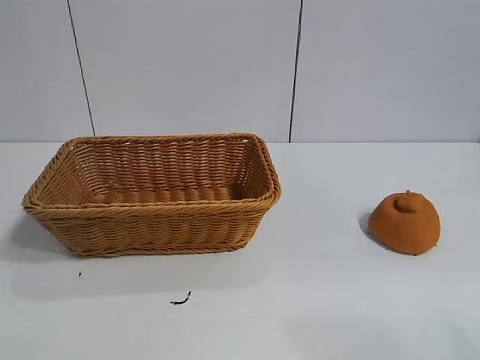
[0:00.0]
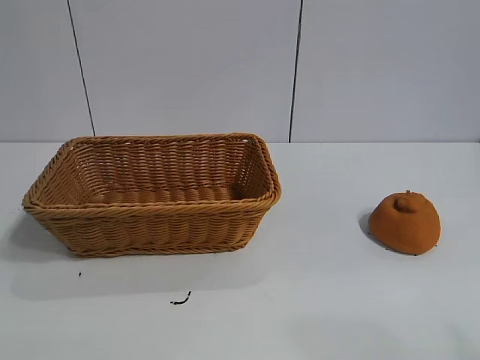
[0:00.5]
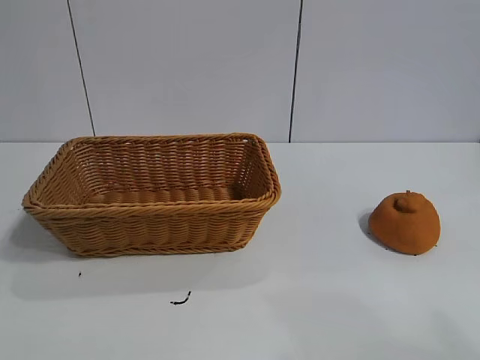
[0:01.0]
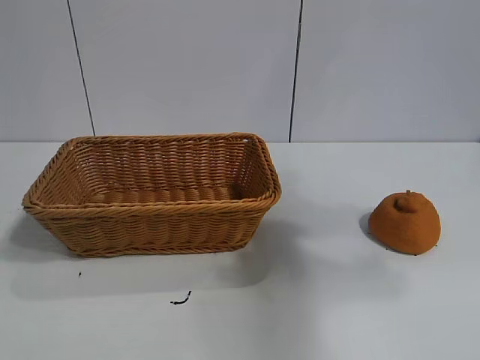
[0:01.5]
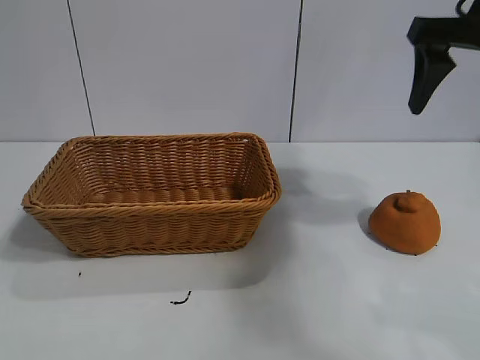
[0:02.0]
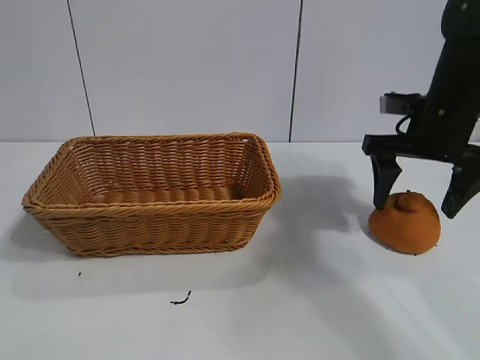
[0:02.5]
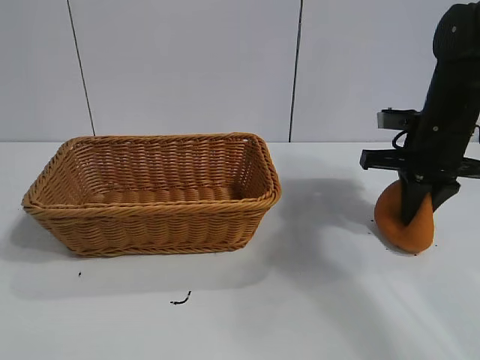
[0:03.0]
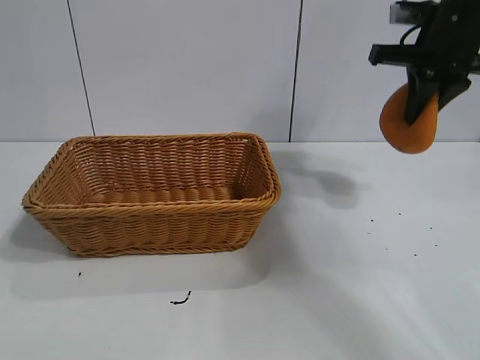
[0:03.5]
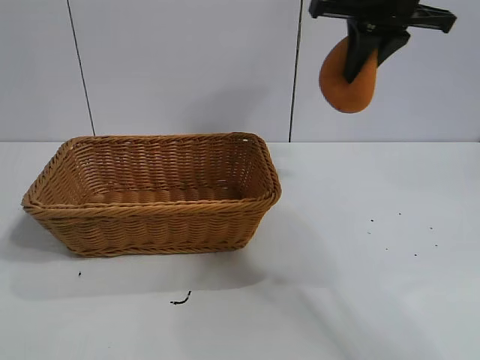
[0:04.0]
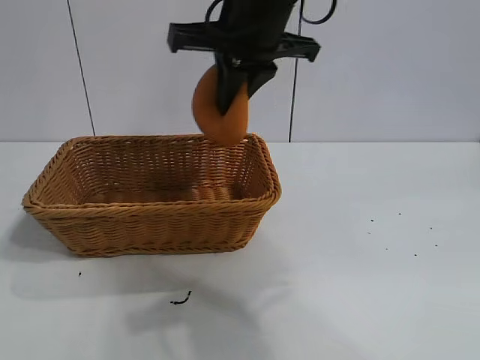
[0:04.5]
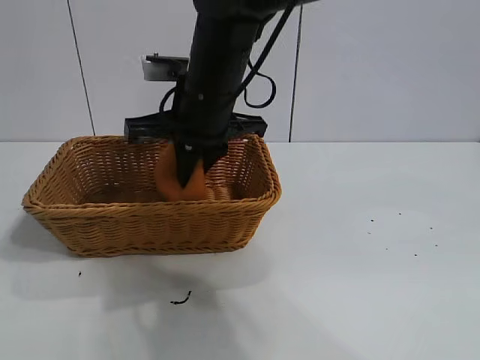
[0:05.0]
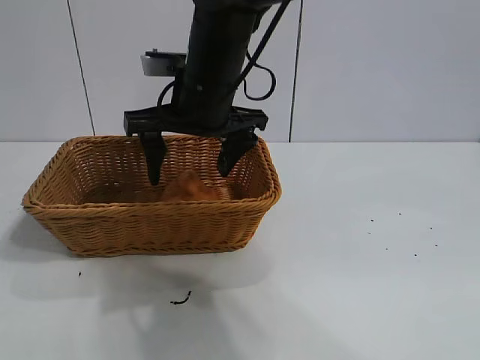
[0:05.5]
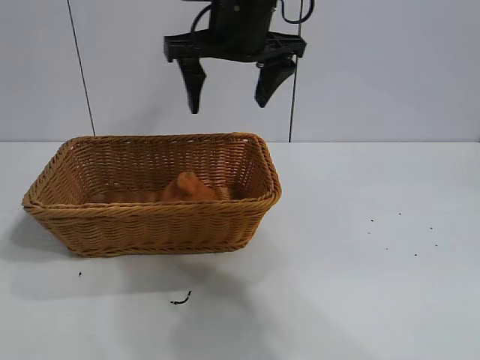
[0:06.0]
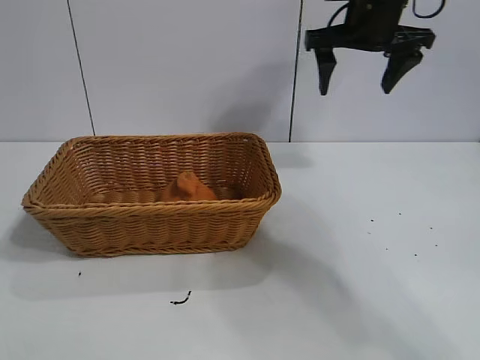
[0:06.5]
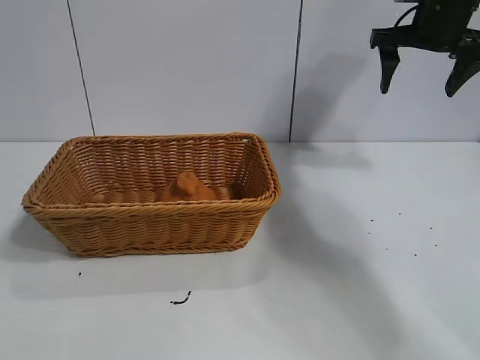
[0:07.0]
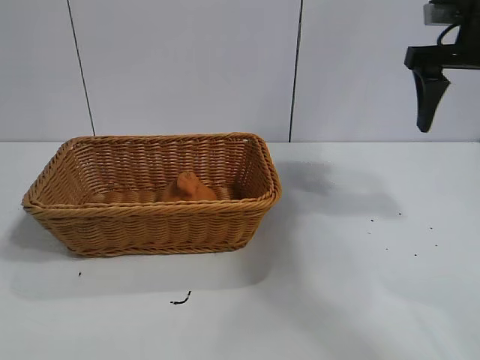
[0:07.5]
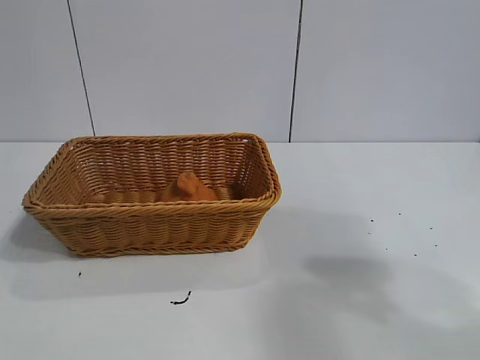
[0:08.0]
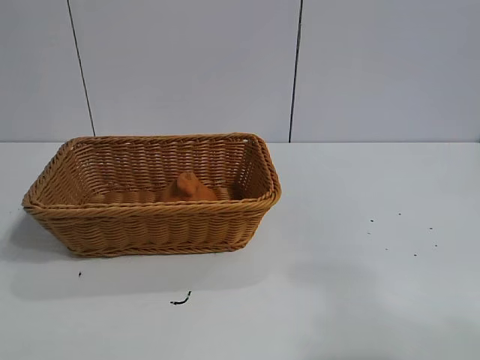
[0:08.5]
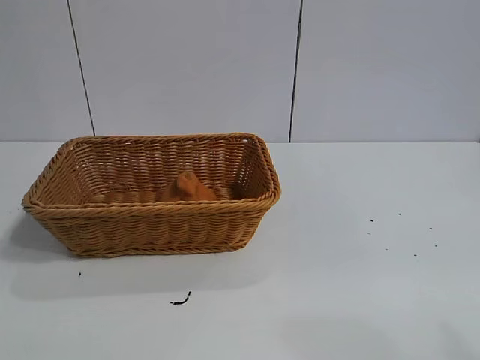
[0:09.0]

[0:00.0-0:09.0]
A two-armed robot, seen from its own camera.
Task of the whole recording: pick up the orange and put it into the basket.
Step, 0:01.0 to 0:03.0: Grasp the orange with right gripper.
Step, 0:03.5 to 0:05.5: Place the orange in the basket with right gripper.

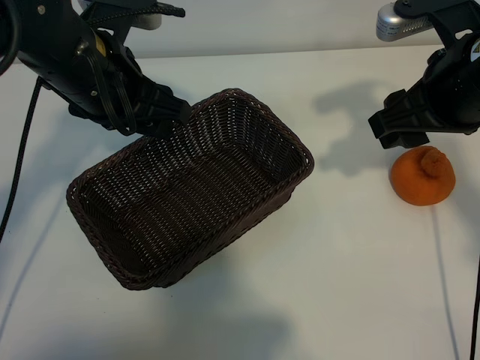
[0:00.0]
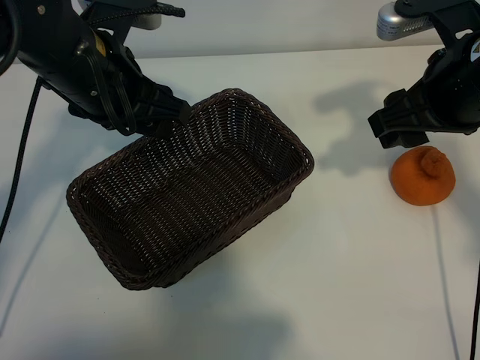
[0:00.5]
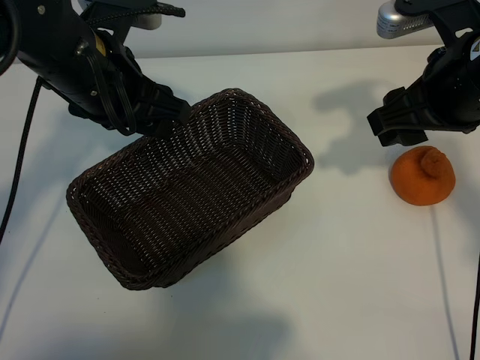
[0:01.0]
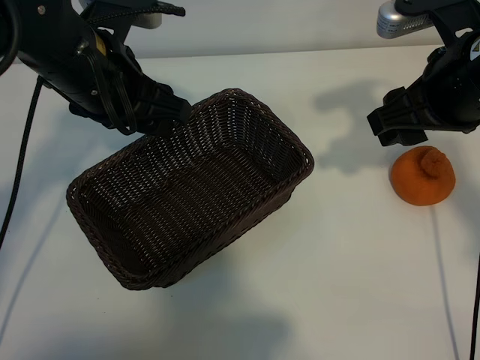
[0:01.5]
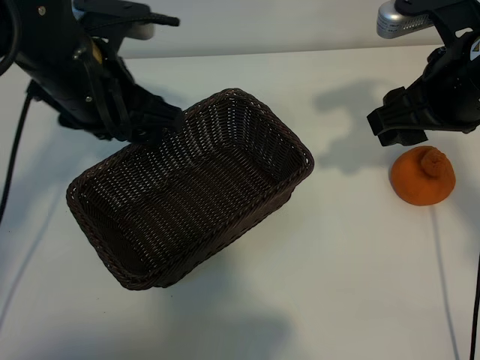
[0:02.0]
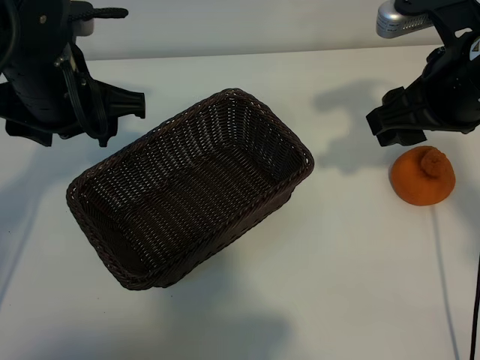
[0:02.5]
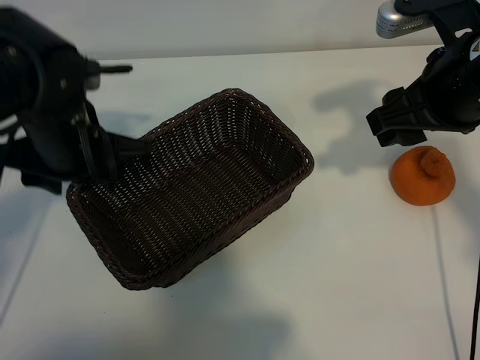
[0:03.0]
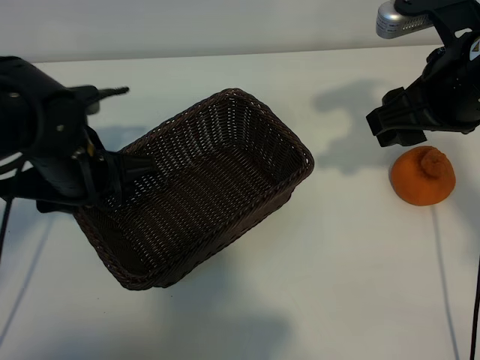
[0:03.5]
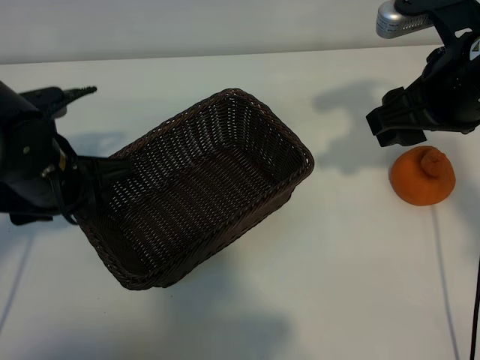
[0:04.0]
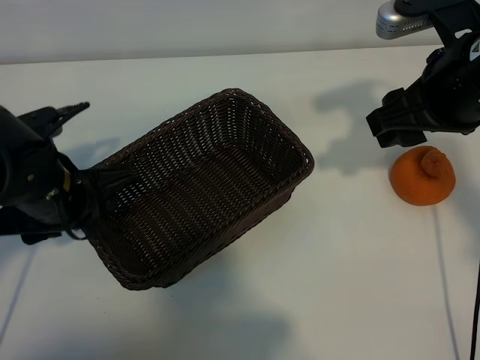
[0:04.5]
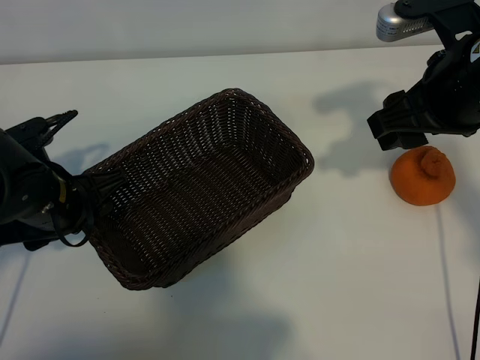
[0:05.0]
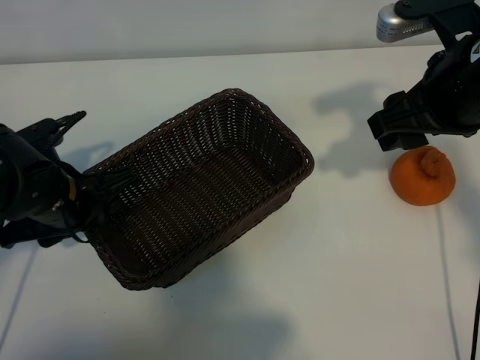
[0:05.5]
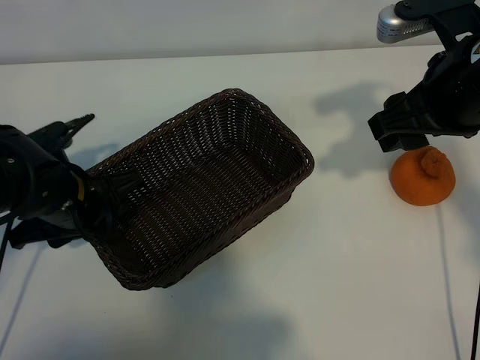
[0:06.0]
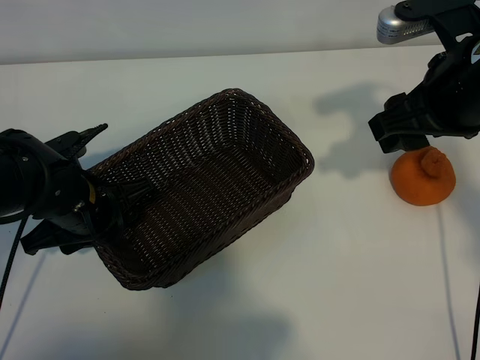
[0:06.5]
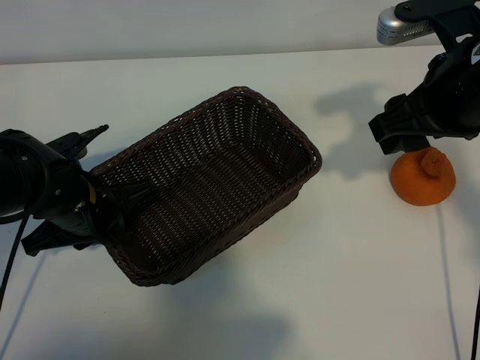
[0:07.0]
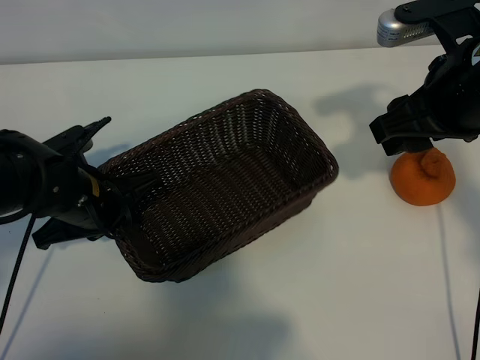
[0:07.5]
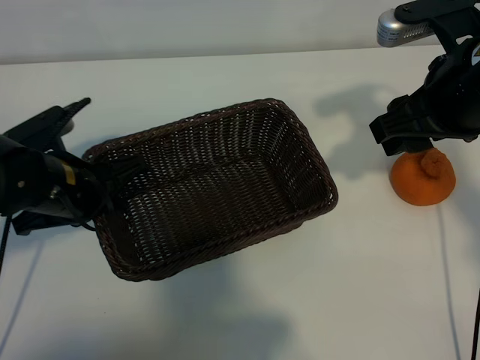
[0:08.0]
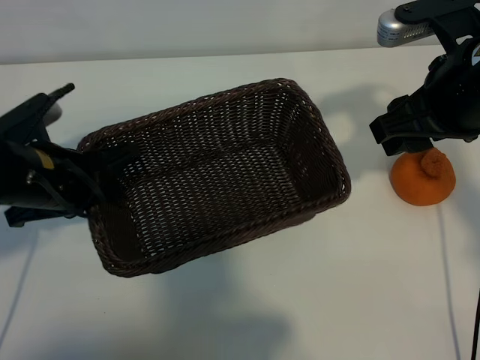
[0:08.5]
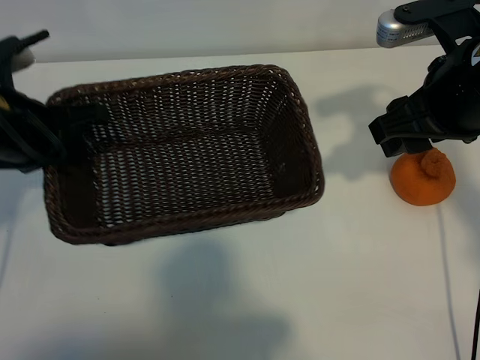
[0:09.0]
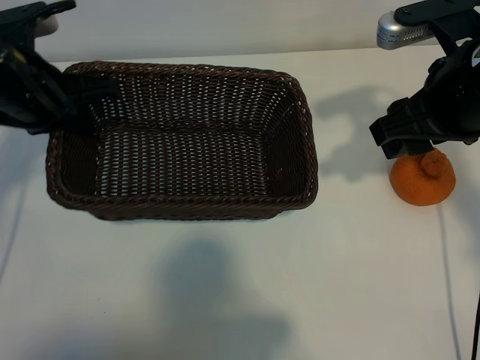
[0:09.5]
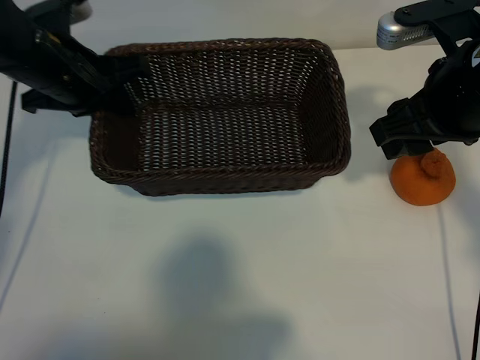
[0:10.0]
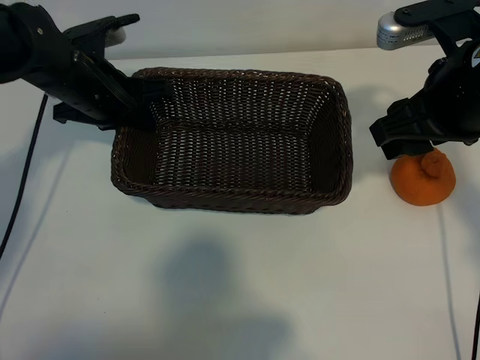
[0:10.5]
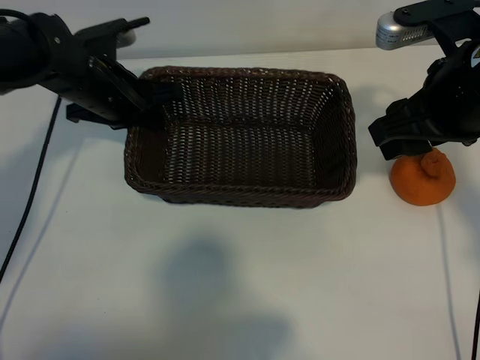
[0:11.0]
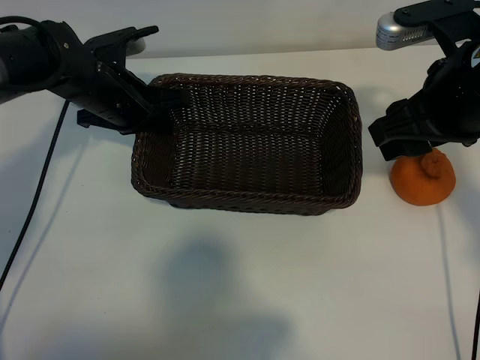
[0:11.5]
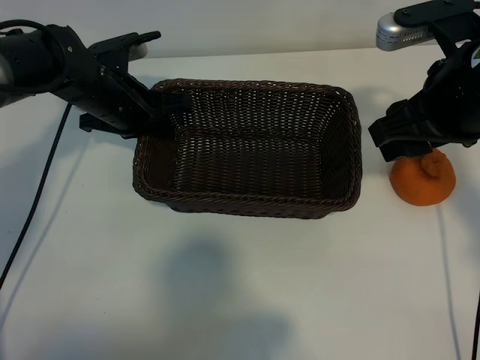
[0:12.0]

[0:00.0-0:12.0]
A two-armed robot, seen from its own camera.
Task of the whole recording: pick up the orange and put it into the basket.
Step, 0:02.0 to 0:07.0: Grasp the basket with left gripper.

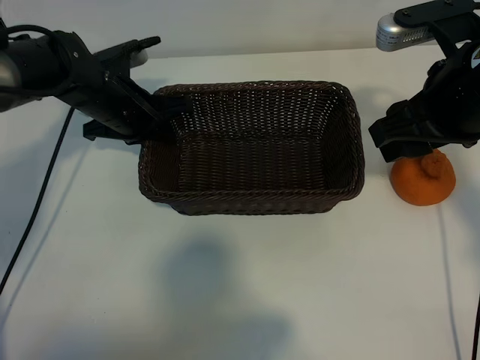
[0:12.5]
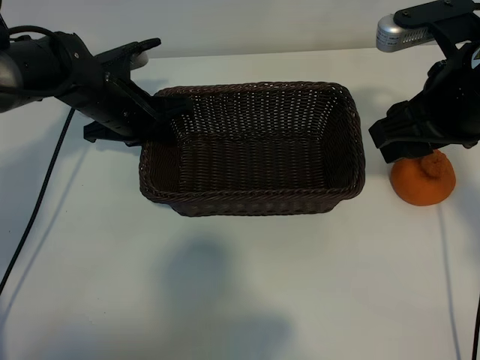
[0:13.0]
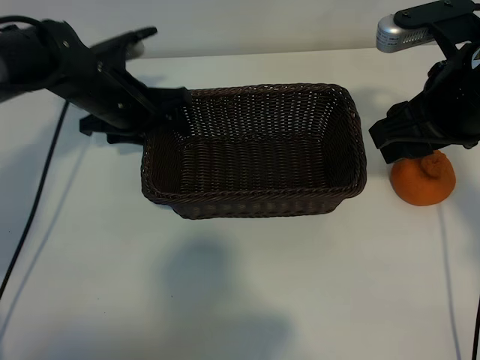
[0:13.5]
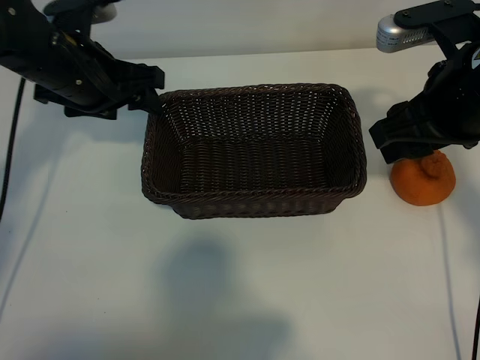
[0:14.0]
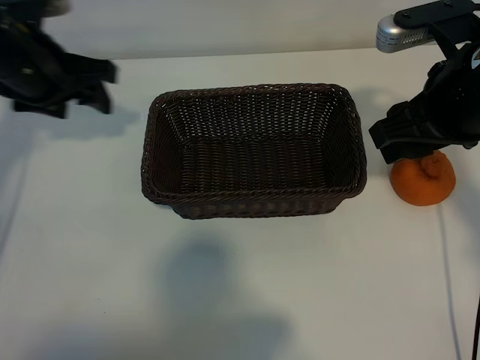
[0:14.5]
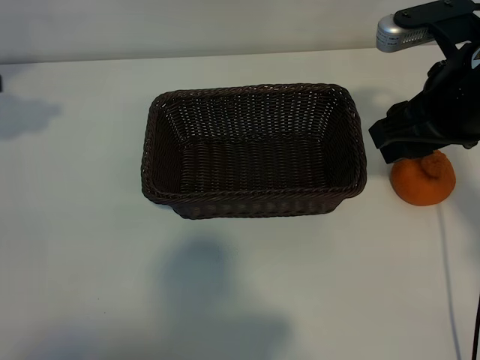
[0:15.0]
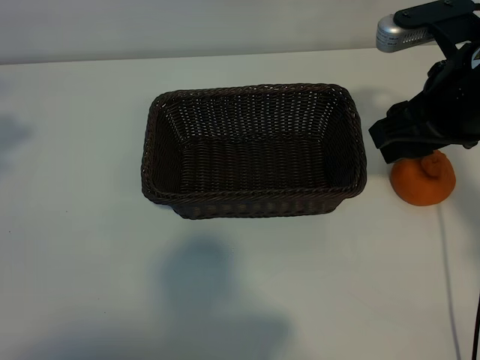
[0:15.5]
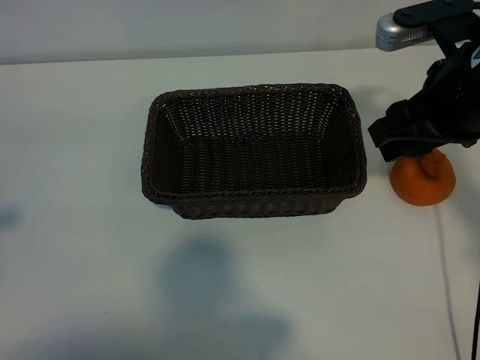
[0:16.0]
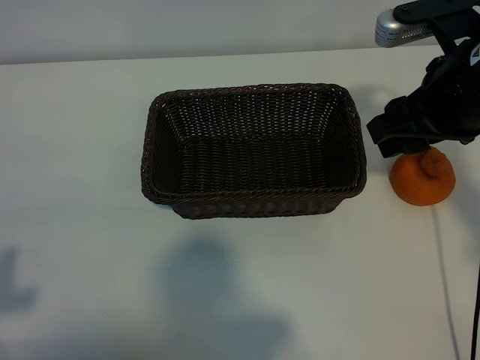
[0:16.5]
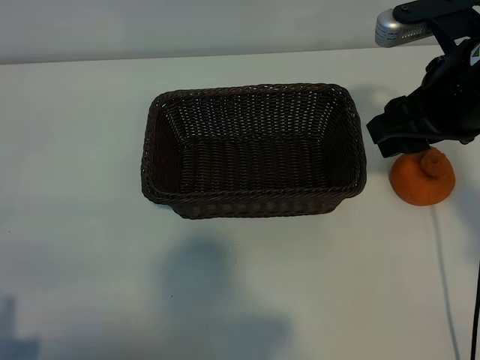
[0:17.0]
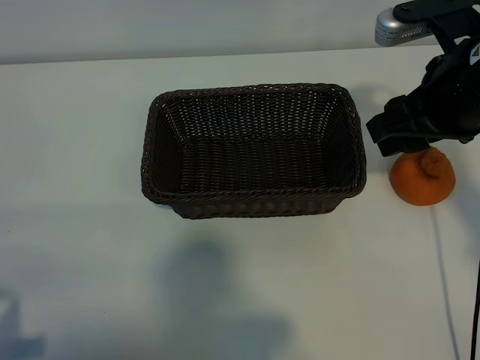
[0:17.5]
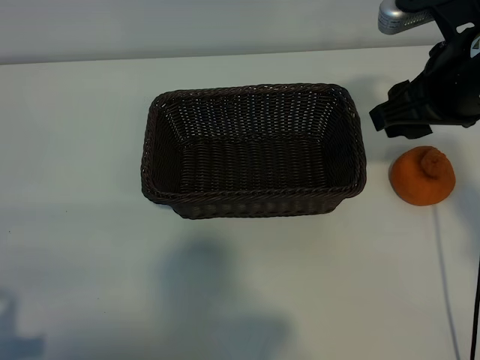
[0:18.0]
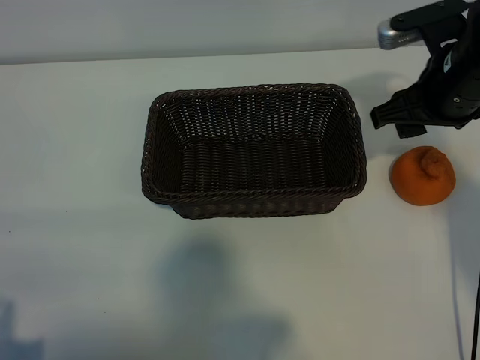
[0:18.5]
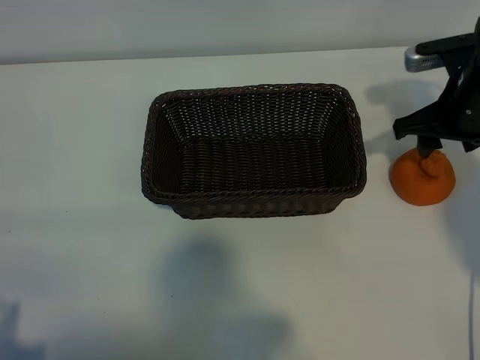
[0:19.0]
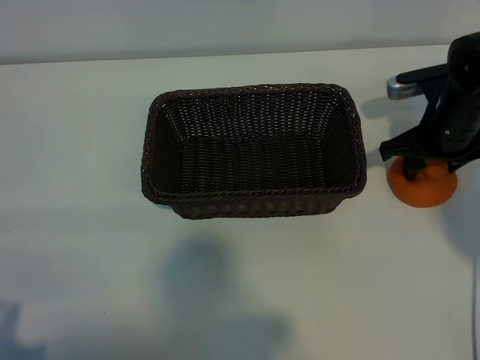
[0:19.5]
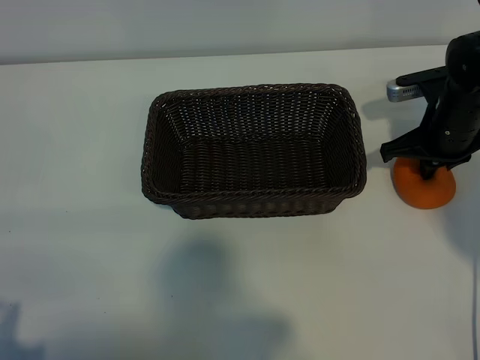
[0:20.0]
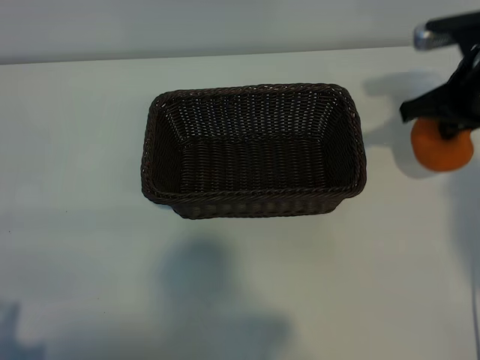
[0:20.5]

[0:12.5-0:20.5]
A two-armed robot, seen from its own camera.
Task of the whole recording: pick up the orange and put it into the basket.
Step, 0:13.5 to 0:19.5: Grasp the orange with right gripper.
